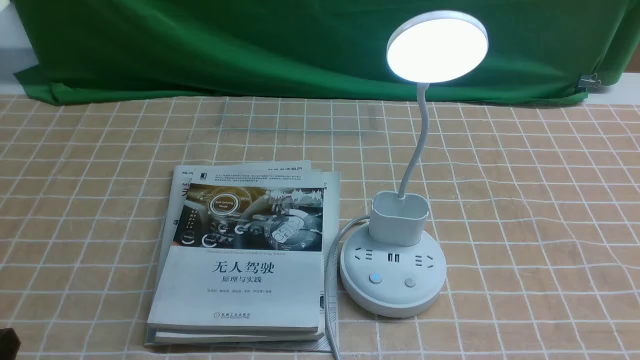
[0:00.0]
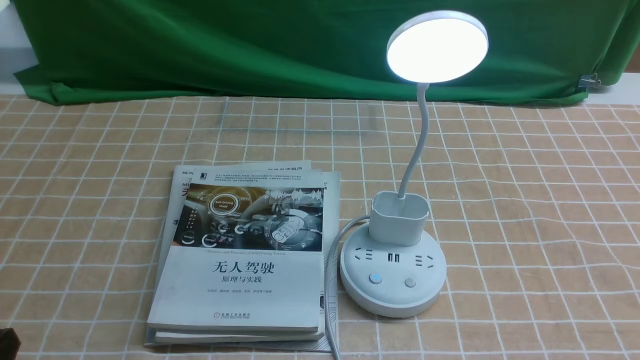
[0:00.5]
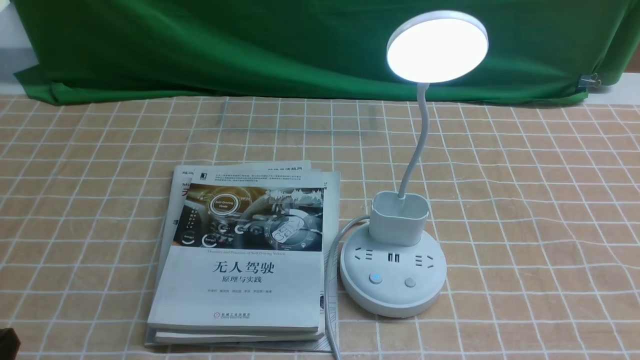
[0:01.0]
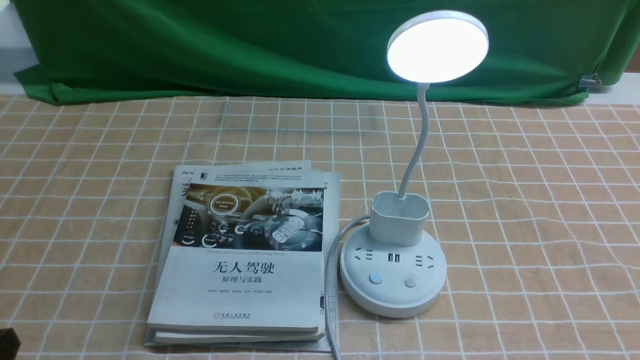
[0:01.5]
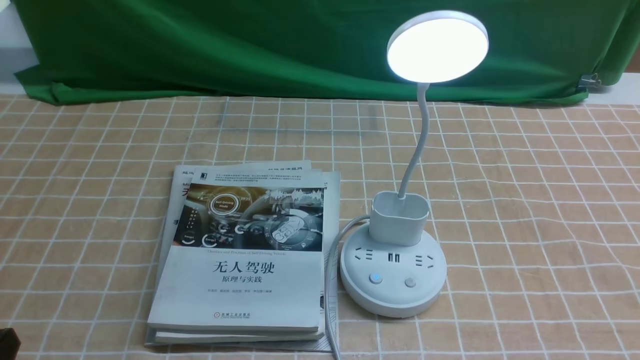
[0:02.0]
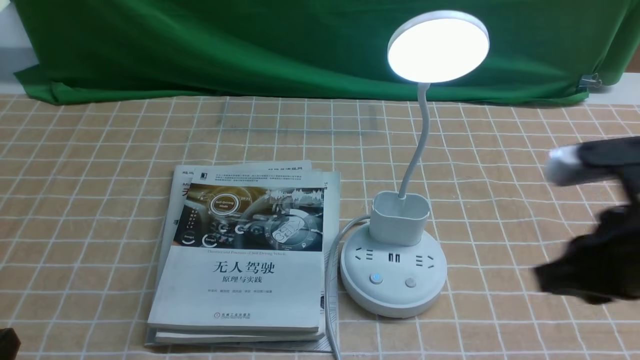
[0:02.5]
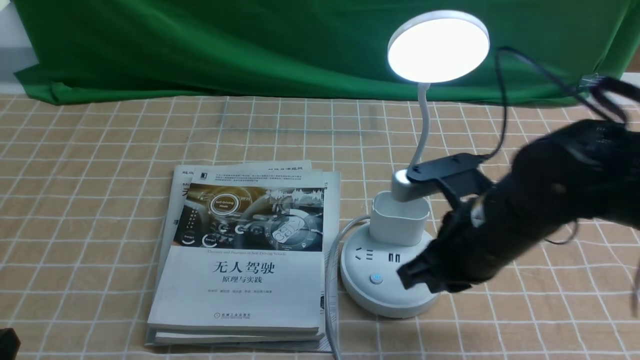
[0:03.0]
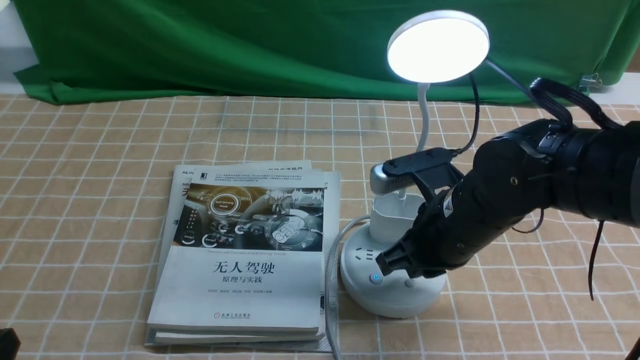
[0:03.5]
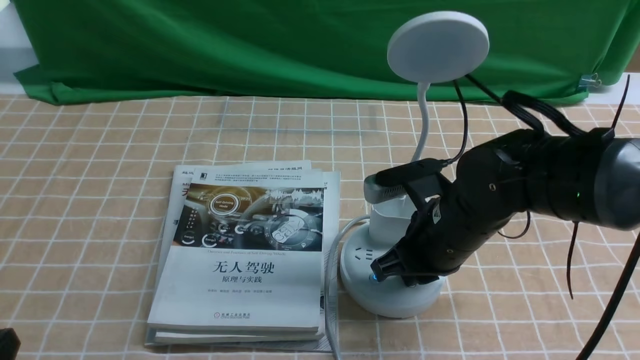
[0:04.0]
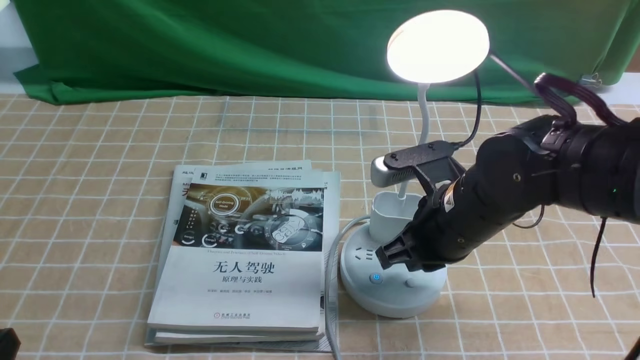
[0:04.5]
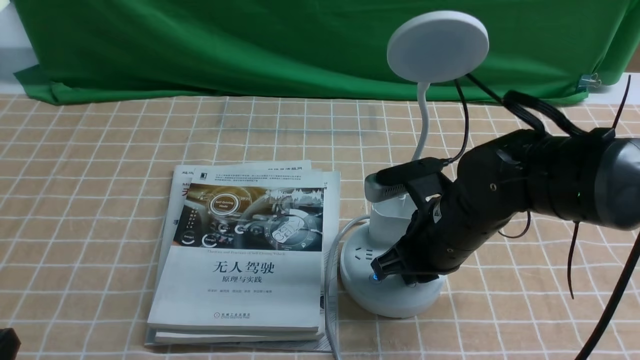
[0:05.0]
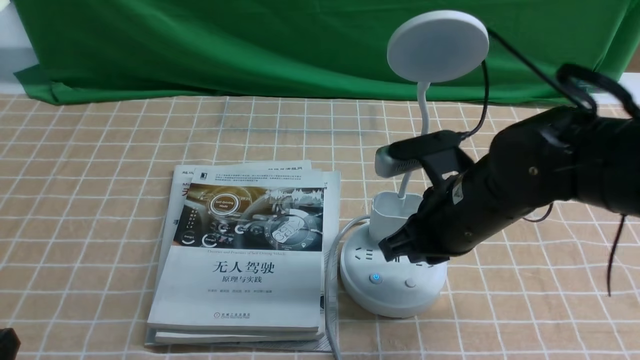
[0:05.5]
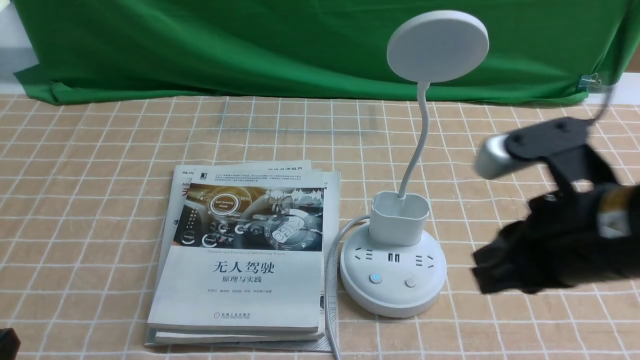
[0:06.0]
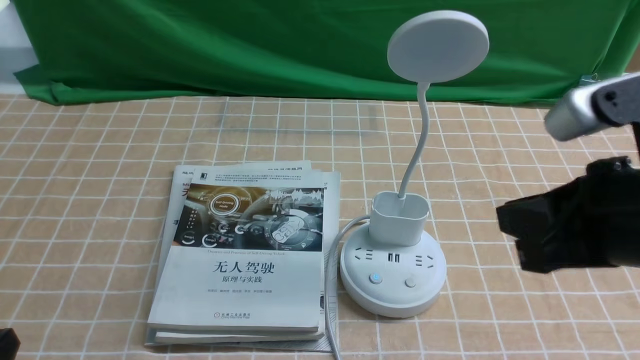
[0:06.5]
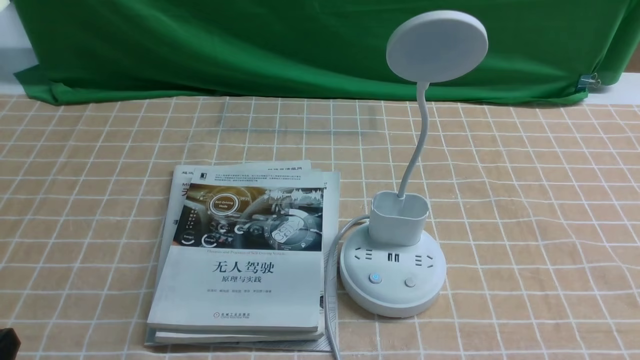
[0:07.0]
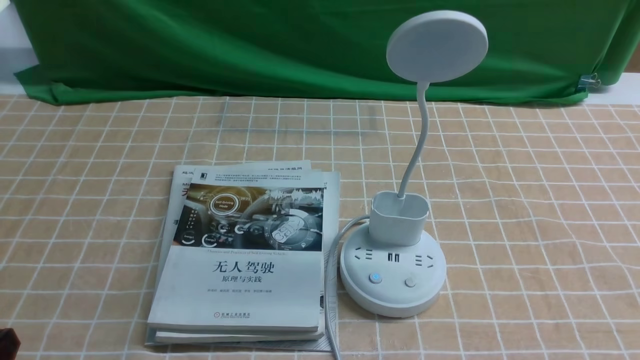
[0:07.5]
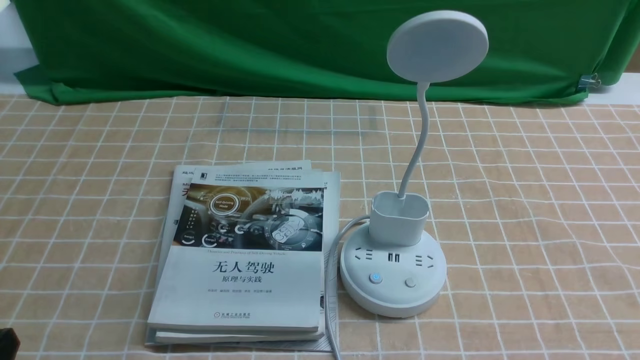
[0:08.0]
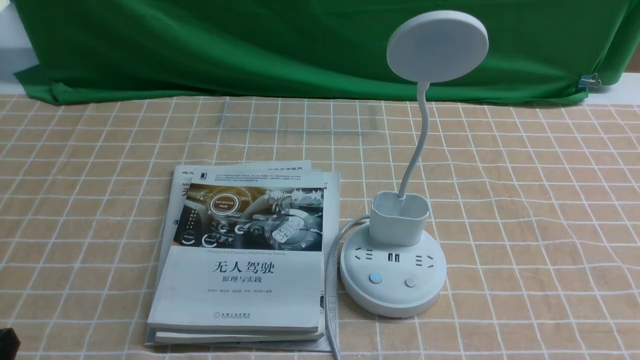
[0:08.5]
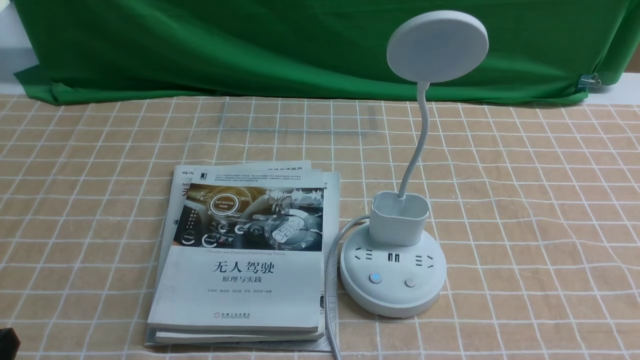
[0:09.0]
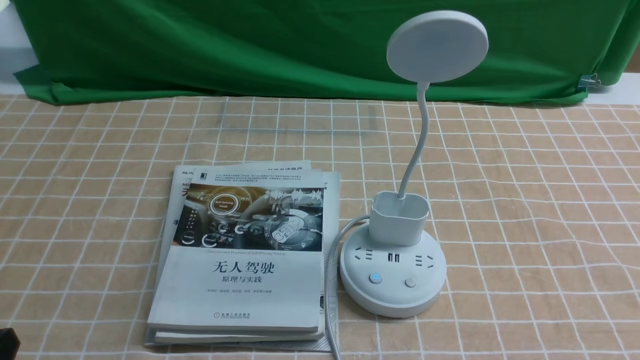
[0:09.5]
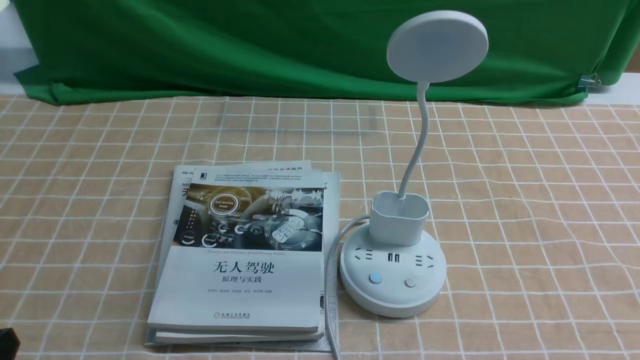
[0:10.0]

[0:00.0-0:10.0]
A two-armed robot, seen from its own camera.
Task of the whole recording: turn off the desk lamp on the light coffee tablecloth by hand.
Step, 0:00.0 to 0:05.0: use the right arm to press the button switch on the lamp holder.
0:02.0 to 0:04.0: The right gripper shifts approximately 30 cm forward and to the left.
0:04.0 to 0:06.0: The right gripper travels upward, backward and to the right by some 15 cm.
0:06.0 to 0:08.0: The right gripper moves backward, to the right and downward, approximately 25 cm.
